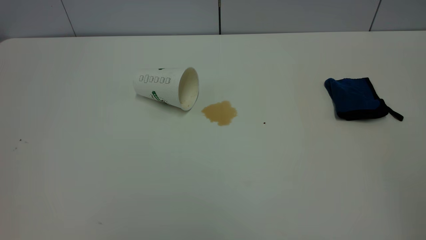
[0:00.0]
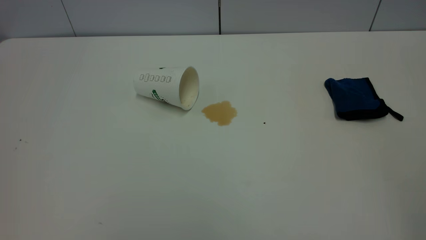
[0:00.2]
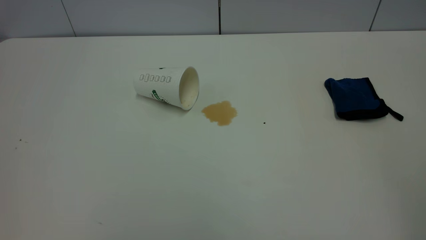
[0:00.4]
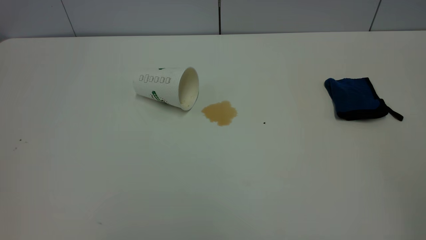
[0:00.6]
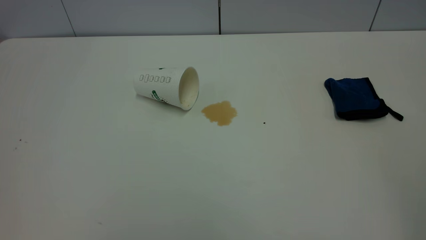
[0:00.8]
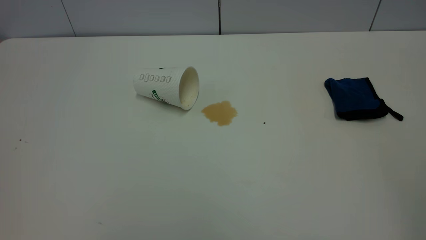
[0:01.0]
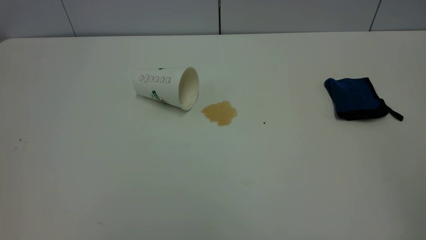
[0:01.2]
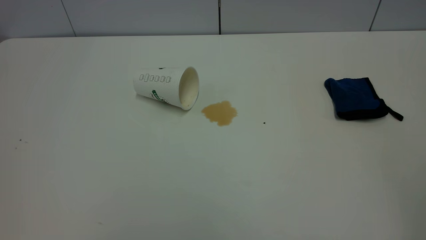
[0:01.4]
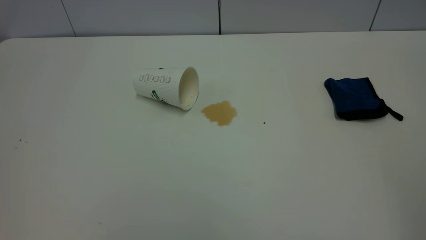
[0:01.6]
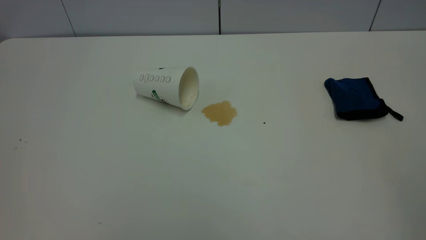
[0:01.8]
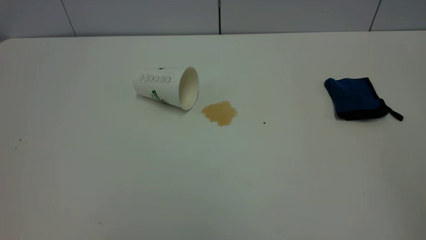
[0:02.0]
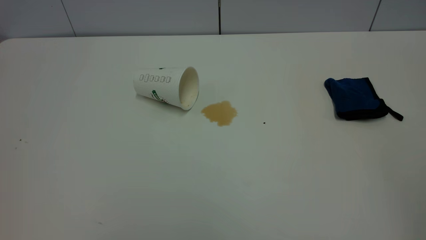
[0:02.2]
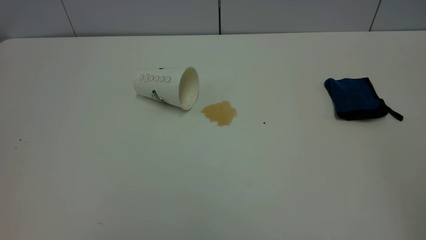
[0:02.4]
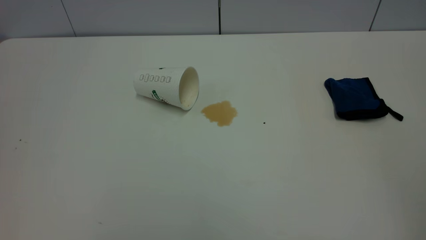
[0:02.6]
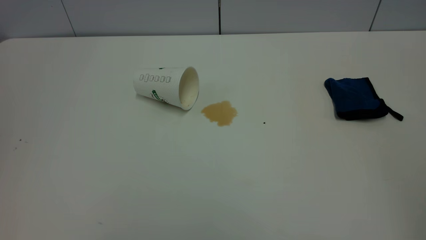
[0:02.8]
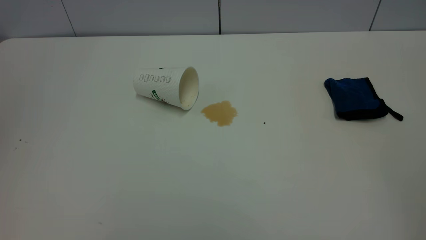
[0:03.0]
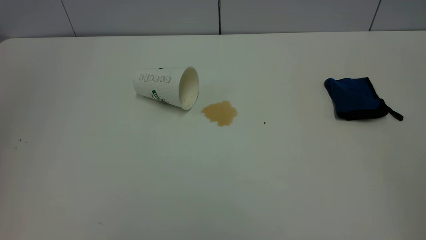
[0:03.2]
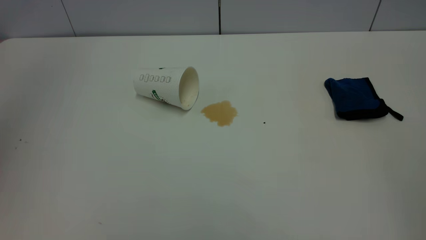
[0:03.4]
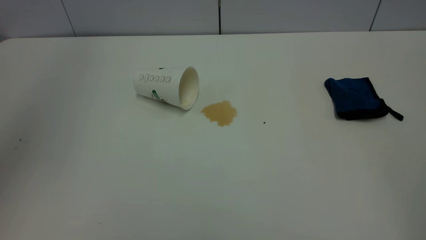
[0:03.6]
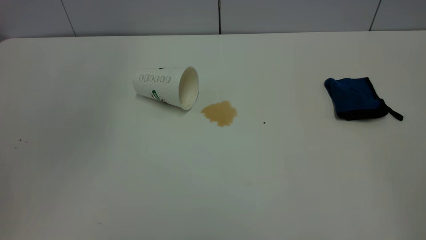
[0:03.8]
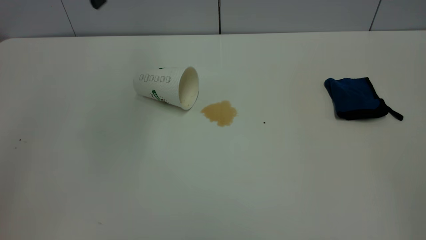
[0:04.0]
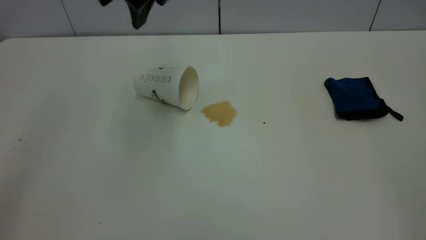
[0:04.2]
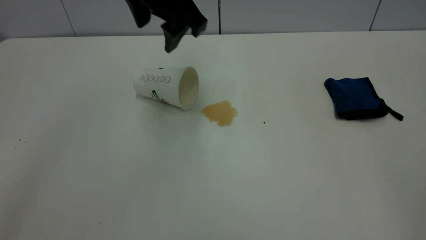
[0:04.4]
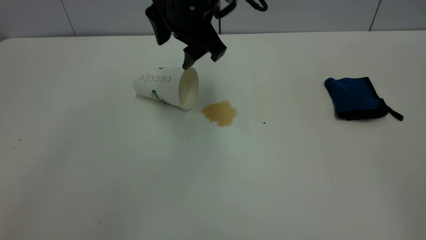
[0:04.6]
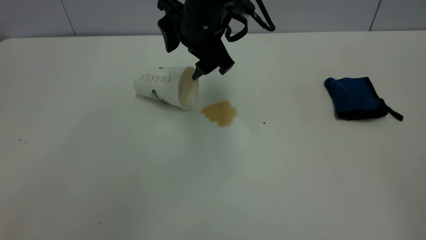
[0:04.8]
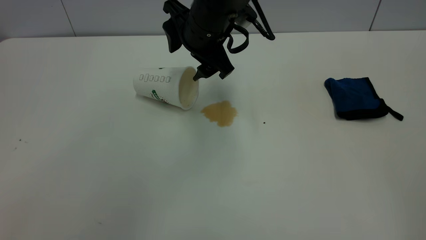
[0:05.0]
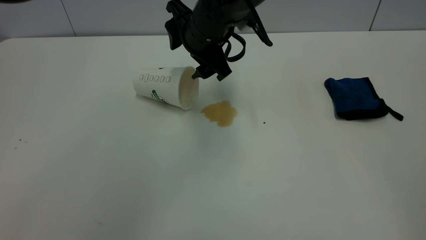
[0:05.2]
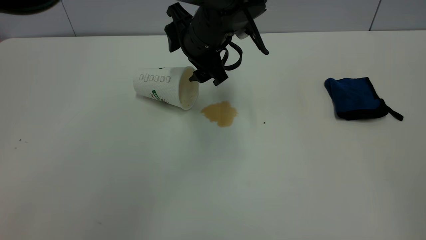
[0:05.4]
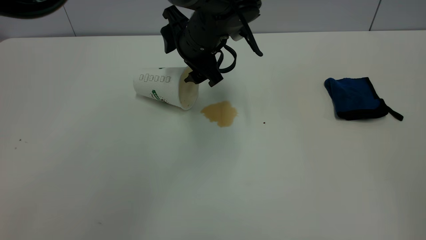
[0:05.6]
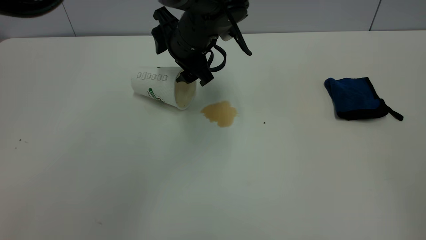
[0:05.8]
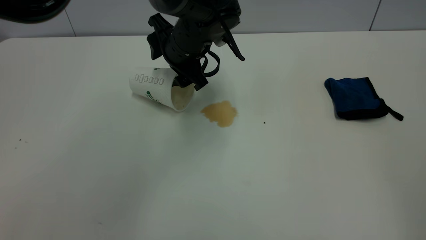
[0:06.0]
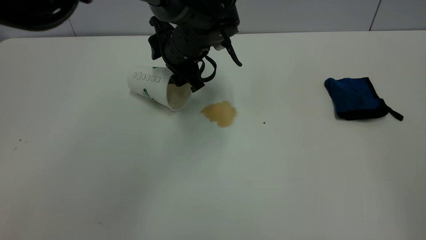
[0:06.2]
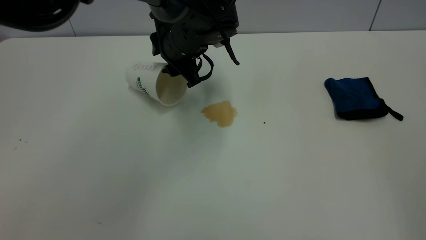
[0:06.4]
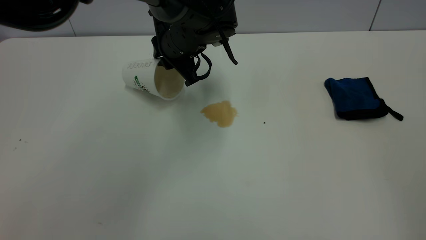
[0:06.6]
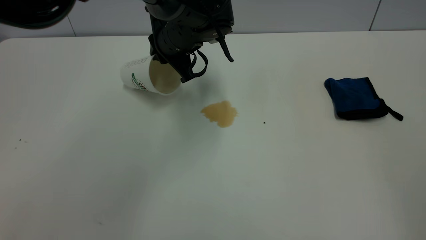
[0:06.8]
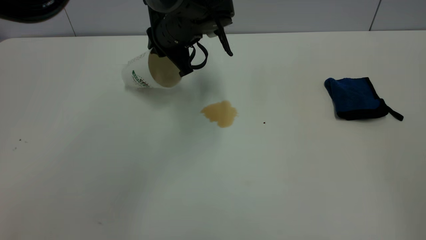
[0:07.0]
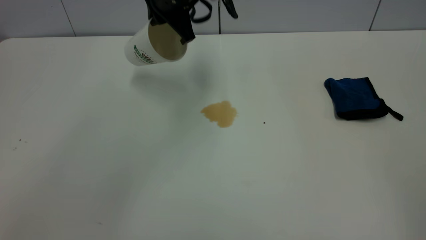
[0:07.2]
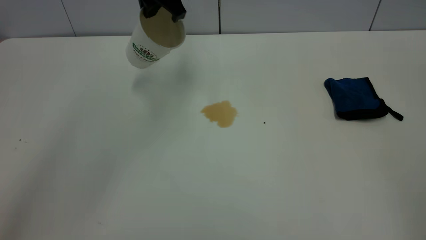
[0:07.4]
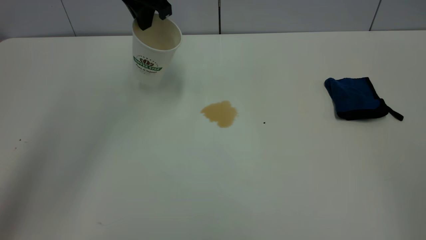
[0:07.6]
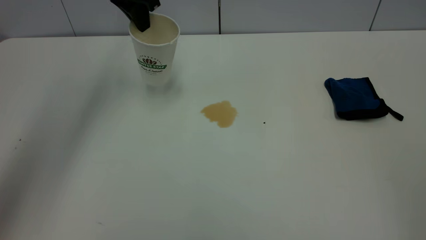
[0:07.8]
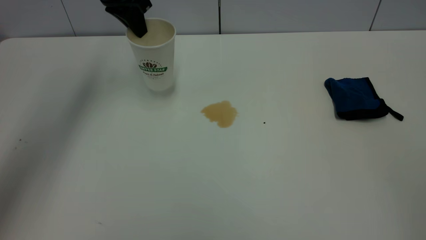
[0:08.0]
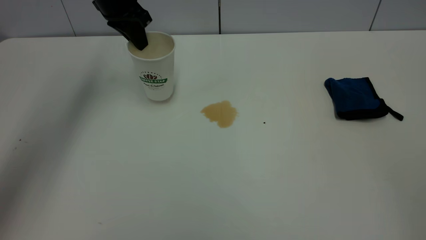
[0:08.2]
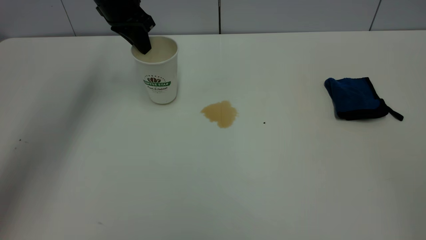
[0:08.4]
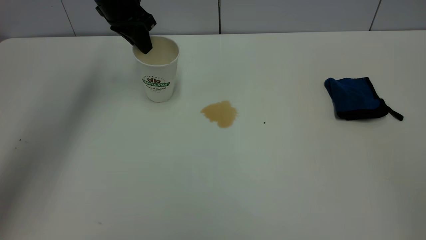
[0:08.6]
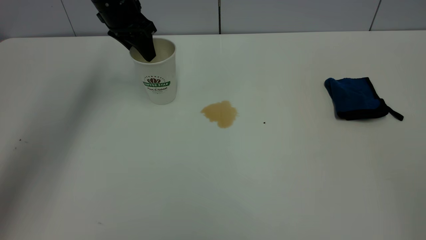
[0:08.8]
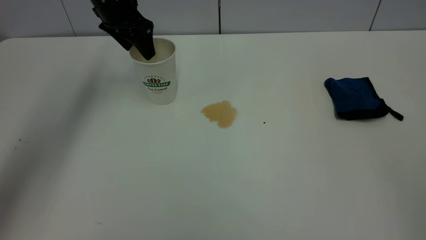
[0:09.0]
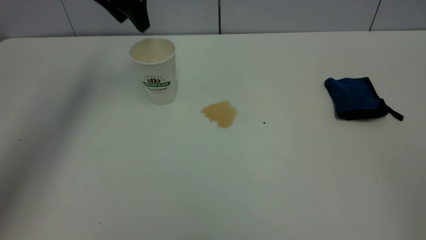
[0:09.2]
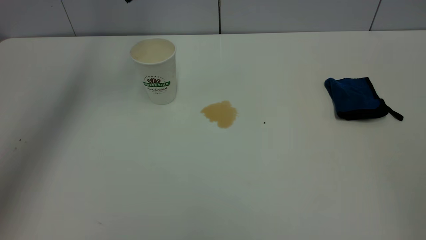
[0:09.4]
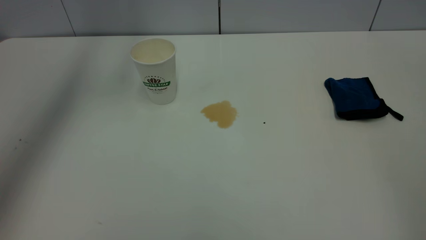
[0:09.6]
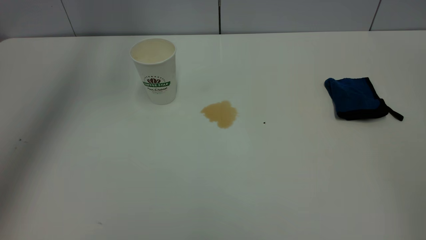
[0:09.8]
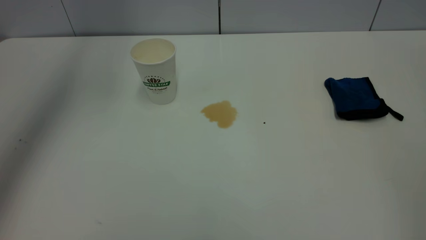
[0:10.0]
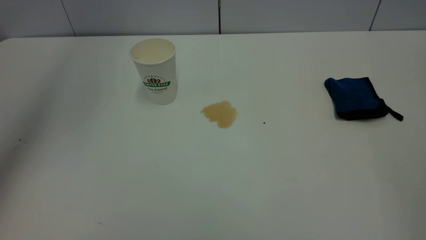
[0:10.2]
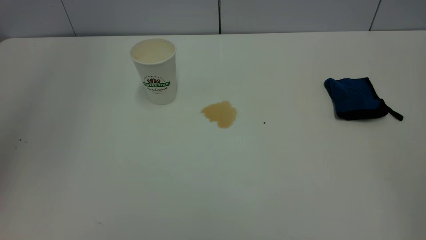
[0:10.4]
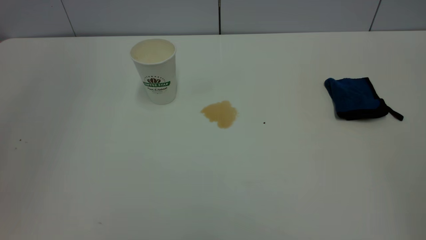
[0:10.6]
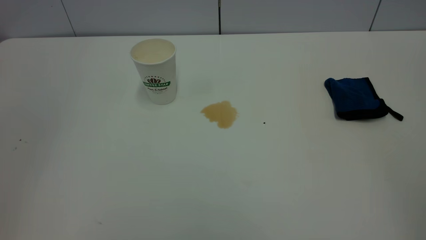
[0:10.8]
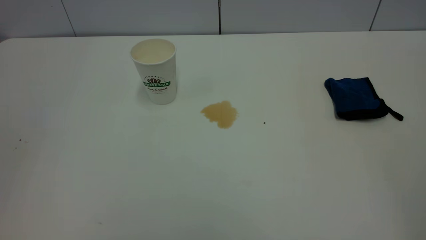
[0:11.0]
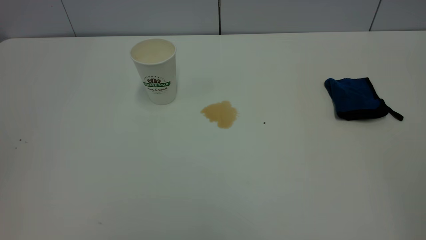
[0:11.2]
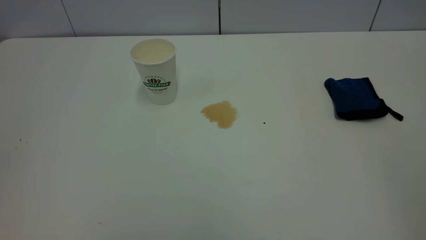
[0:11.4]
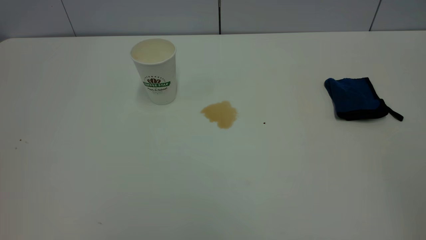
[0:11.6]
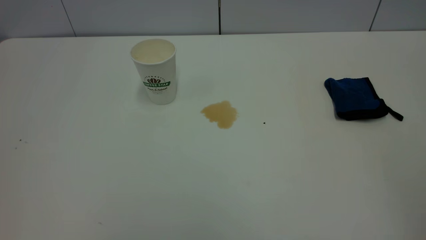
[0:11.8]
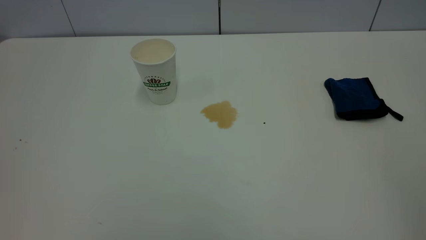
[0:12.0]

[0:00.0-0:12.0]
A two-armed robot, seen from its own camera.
Task of the whole recording: the left gripper pick up the fallen cup and place it upright, the right gripper grasp the blue rag and wipe the tea stain on the table, the right gripper put the blue rag back in its original position.
Step, 0:00.0 to 0:09.0: Stand the paper cup upright.
0:00.0 to 0:01.6: Neither gripper changes place.
0:03.0 to 0:04.4: The left gripper goes some 40 cm to the right, forward and downward.
0:04.4 to 0:06.0: The left gripper moves downward and forward, some 15 cm.
0:06.0 to 0:07.6: The left gripper heads upward, to the left and forward, covering some 15 cm, and closes.
0:07.6 to 0:09.0: The left gripper shifts roughly 5 cm to the left, and opens.
0:09.0 to 0:10.4: The left gripper moves upward and backward, some 30 cm, and closes.

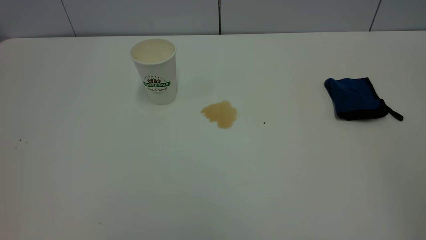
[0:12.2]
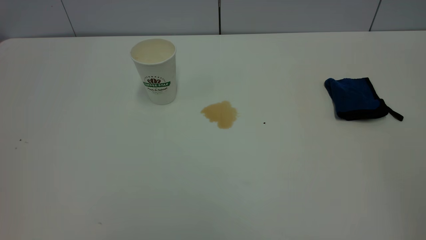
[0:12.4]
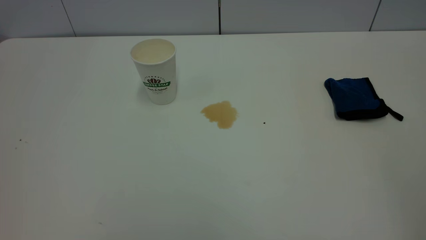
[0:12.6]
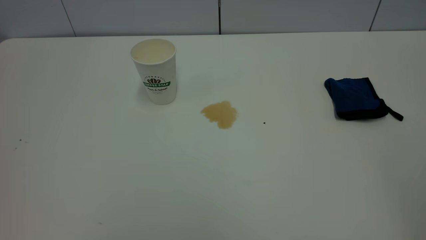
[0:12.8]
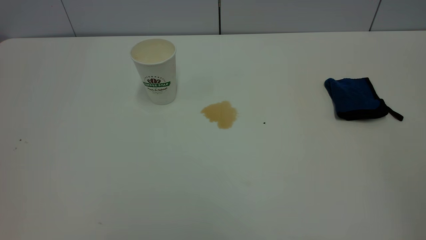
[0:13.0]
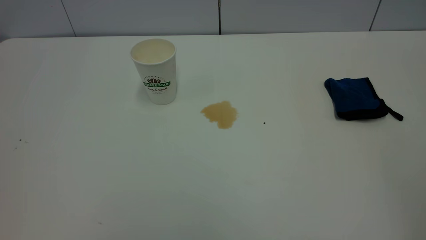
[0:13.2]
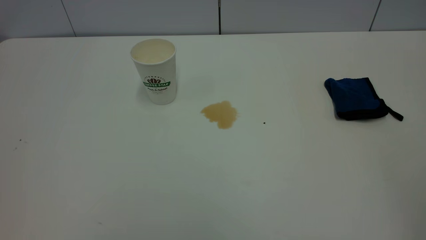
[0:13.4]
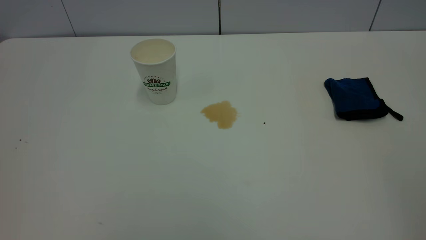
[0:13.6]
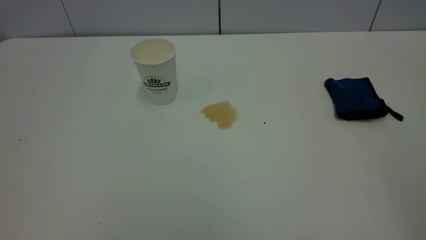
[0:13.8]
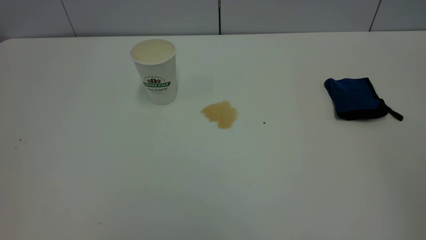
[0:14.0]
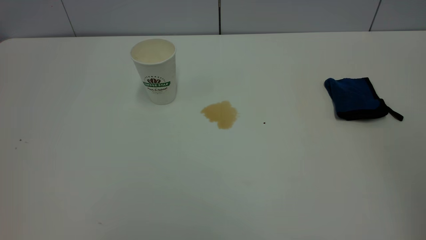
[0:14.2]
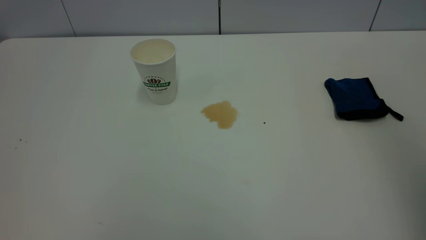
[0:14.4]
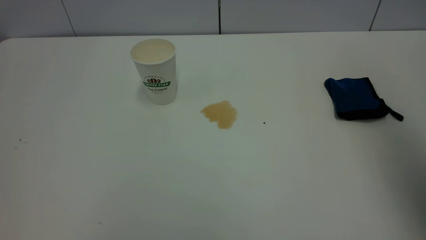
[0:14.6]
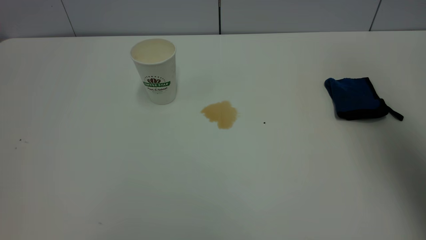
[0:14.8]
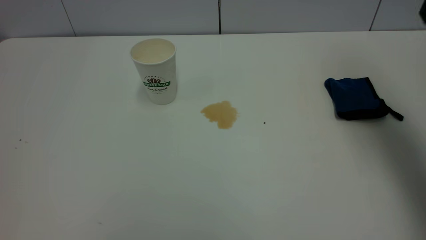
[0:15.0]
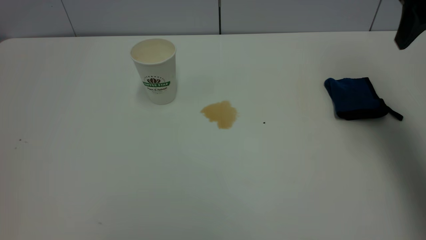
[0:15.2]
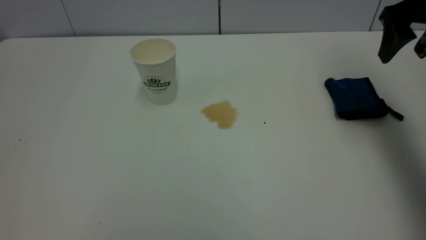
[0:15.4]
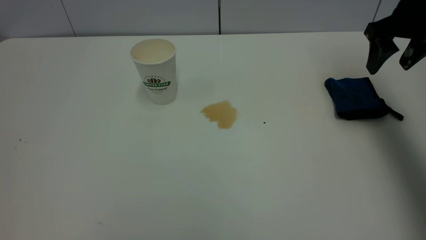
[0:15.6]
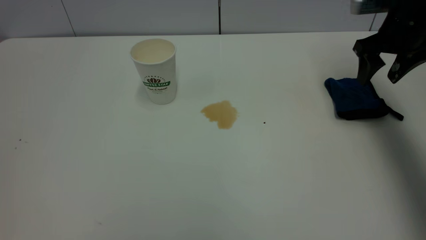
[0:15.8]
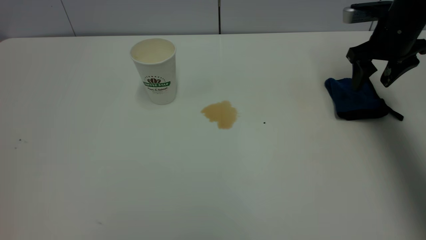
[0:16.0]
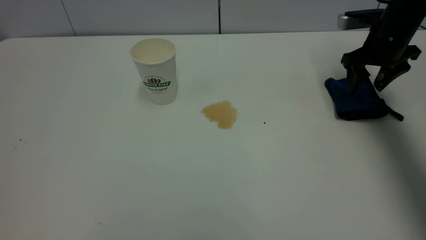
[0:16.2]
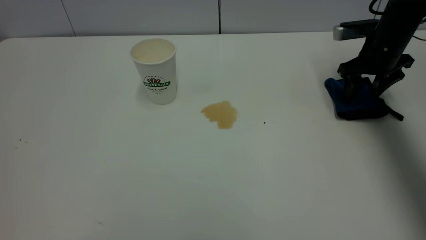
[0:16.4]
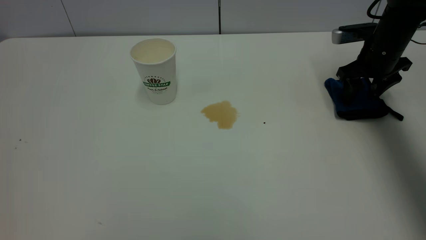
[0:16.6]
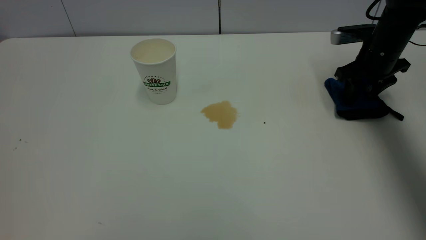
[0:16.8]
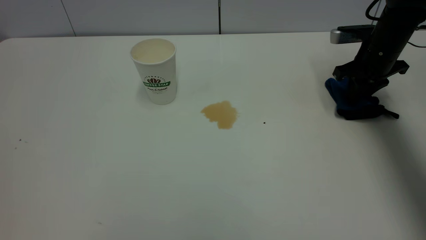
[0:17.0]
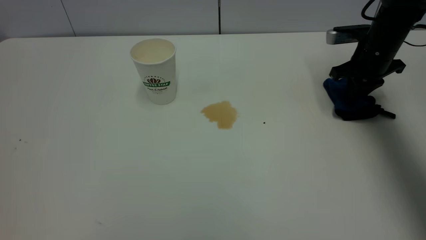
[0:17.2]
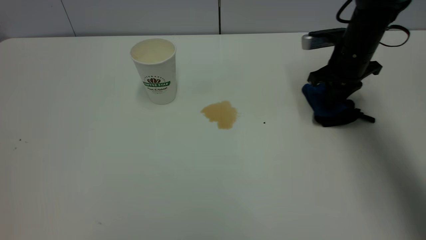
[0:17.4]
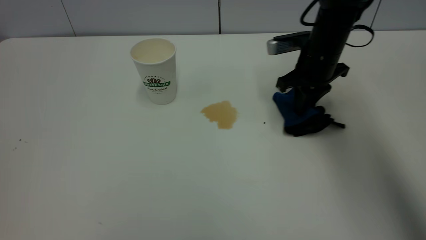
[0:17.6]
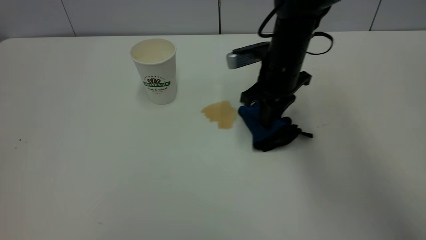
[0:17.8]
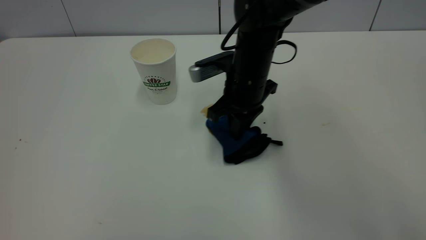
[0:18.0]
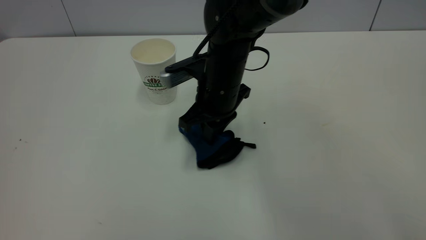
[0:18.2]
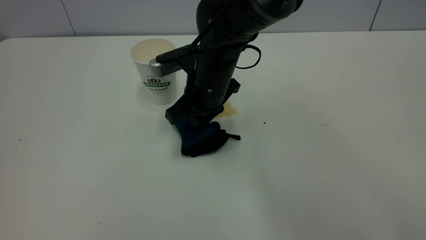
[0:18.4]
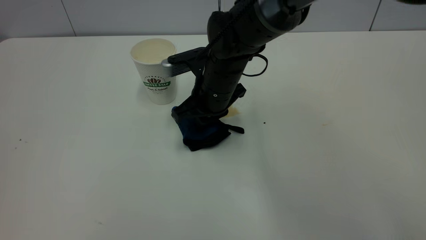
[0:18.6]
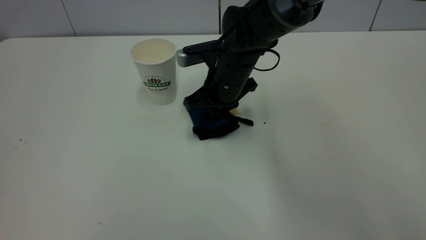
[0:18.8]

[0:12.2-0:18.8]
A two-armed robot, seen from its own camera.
Task of the whole recording: the left gripper pick up the fallen cup and place it upright, the right gripper grasp the blue rag and wipe the tea stain on the table, the right gripper put the blue rag back in its original position.
0:12.2 to 0:13.8: Both grippers stay put.
0:13.8 to 0:15.4: The right gripper is displaced forward by approximately 40 cm.
0:15.4 to 0:17.2: The right gripper travels downward and forward by approximately 15 cm, and closes up.
0:17.2 to 0:18.8: The right gripper travels to the left by some 25 cm.
